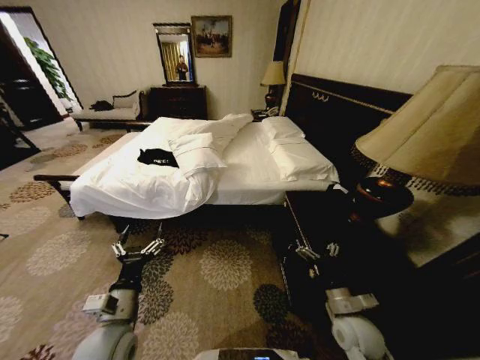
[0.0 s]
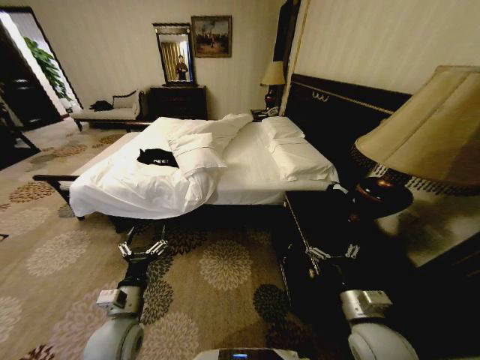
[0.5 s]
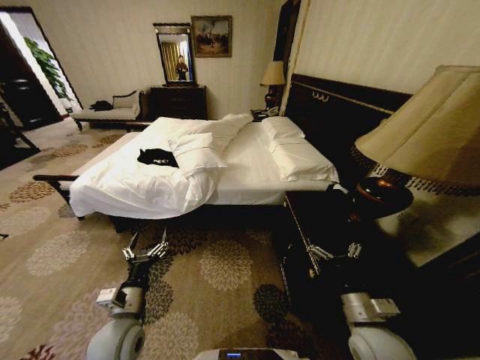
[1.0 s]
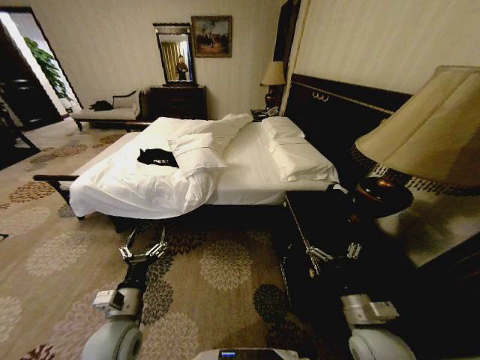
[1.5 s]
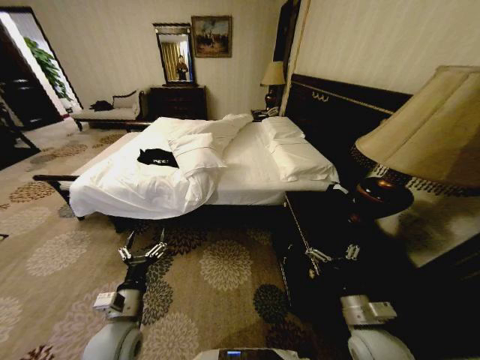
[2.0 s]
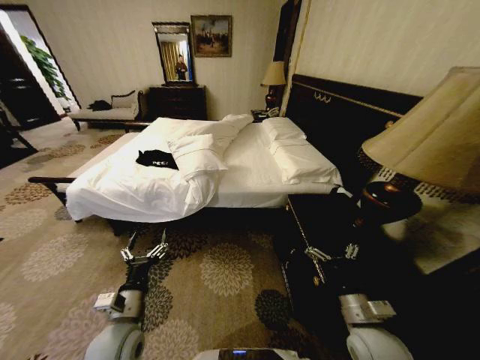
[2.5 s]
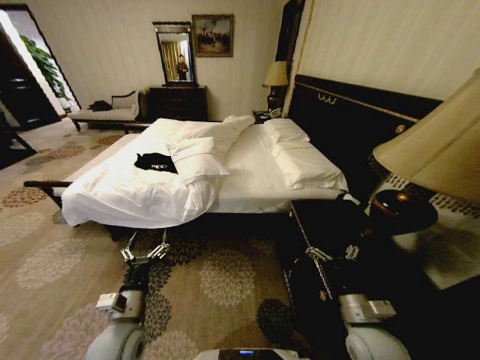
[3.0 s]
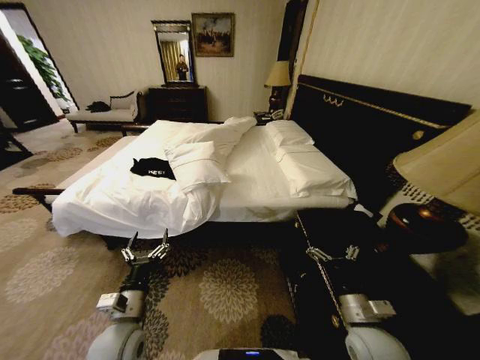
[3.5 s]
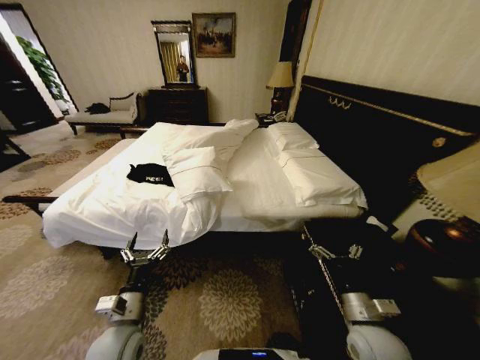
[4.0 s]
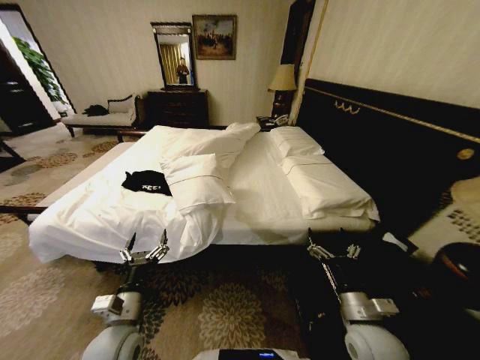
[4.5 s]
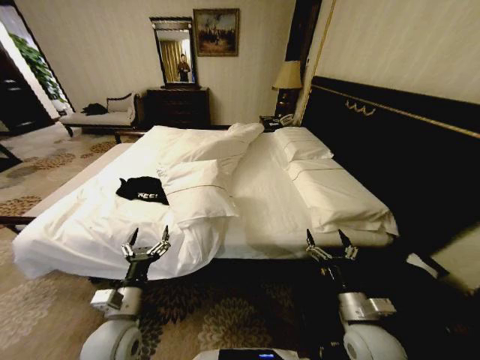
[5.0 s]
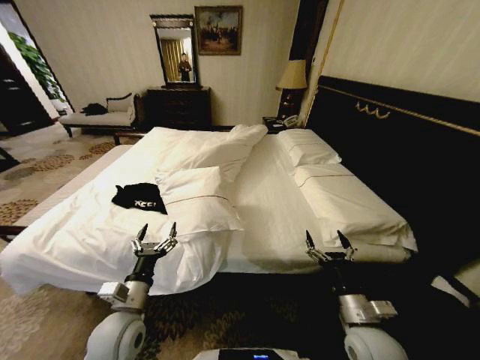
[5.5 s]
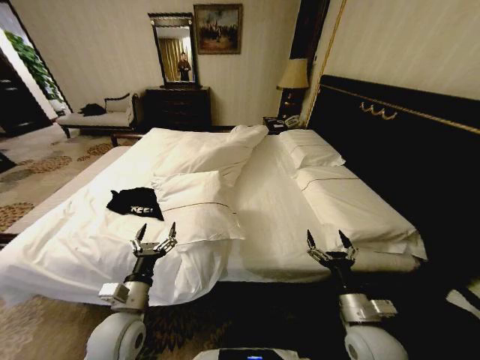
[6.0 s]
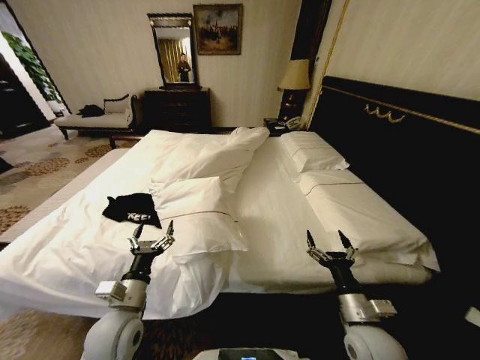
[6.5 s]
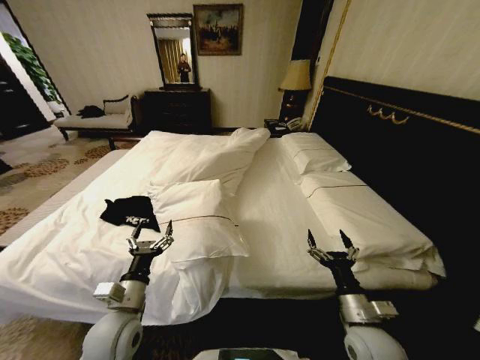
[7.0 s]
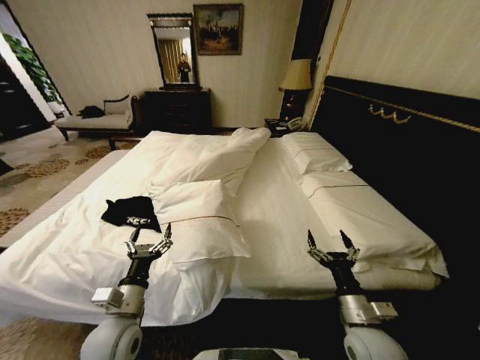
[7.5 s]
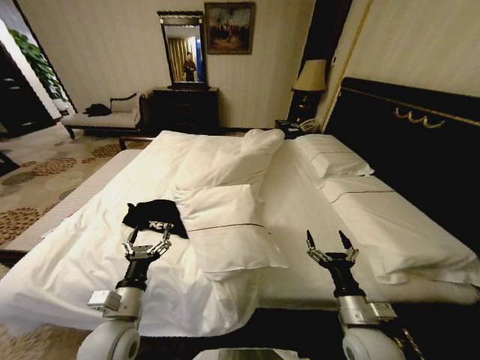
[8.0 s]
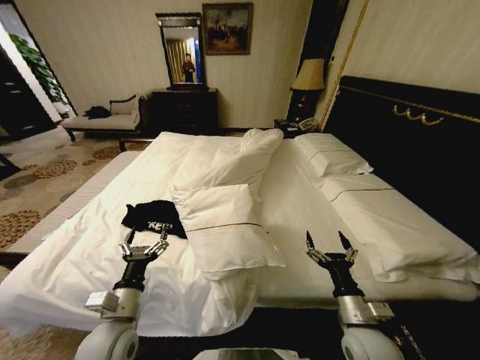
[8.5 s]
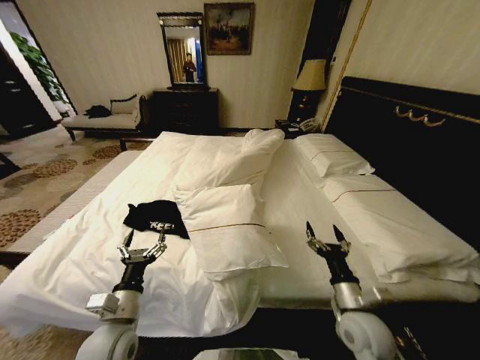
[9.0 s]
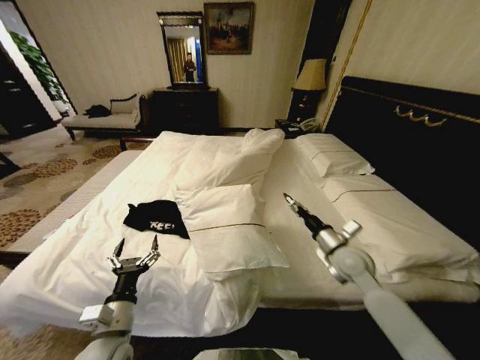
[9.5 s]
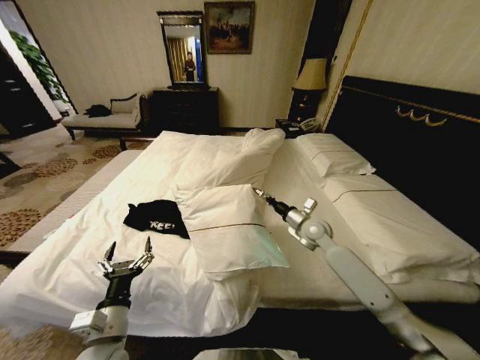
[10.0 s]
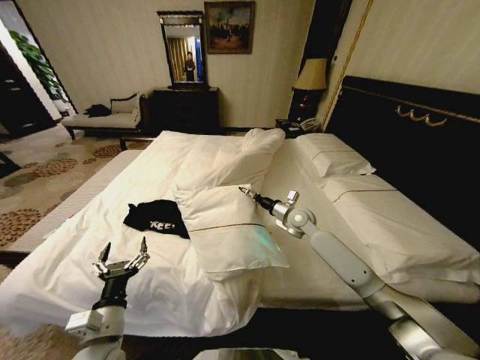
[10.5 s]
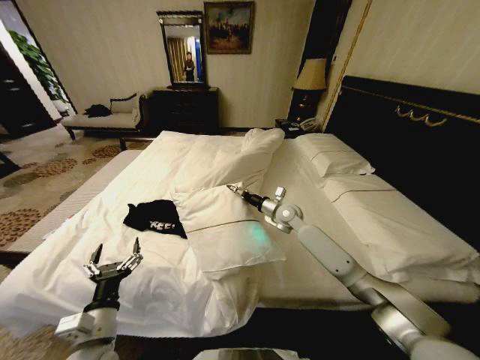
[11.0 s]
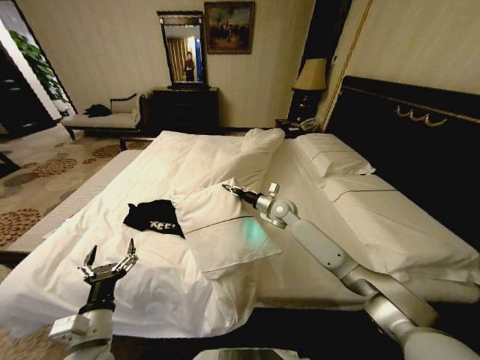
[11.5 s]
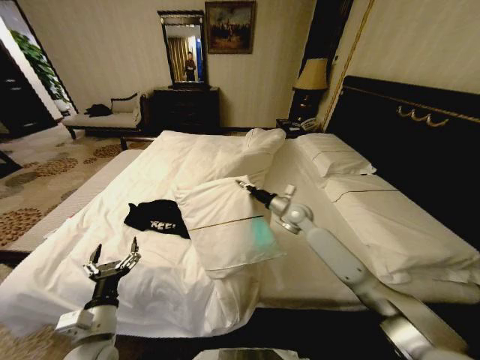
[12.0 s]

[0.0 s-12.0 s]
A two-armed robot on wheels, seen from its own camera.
Task of the whole recording: Fold the clothes on the bed.
8.0 to 10.0 s: The right gripper goes roughly 30 cm forward.
10.0 to 12.0 s: The right gripper is displaced forward by about 5 cm, and closes its fingers.

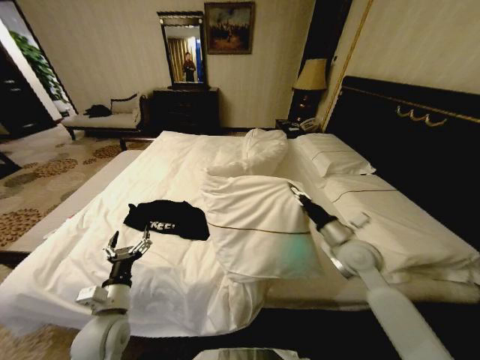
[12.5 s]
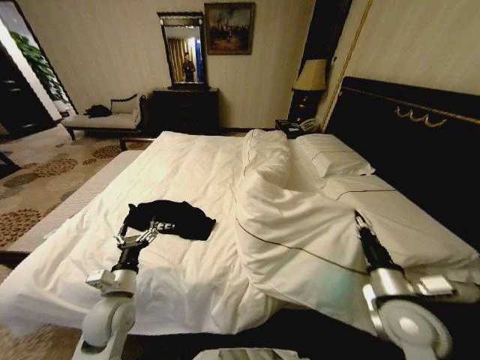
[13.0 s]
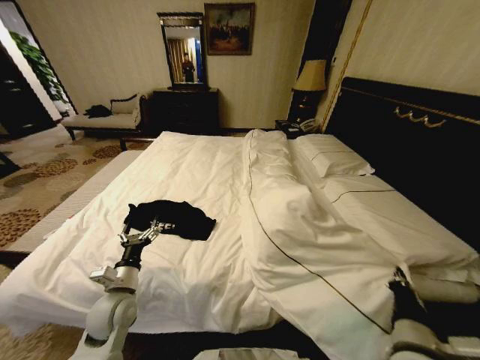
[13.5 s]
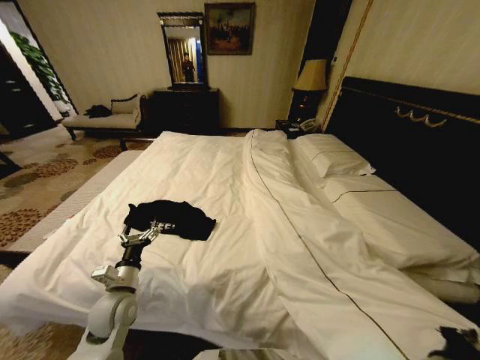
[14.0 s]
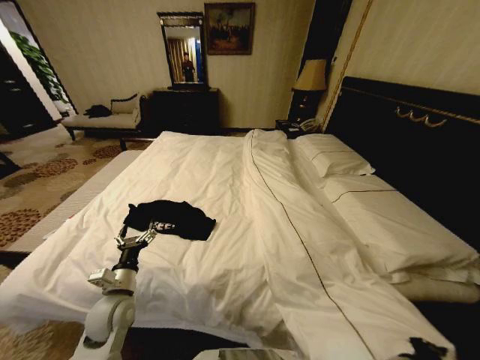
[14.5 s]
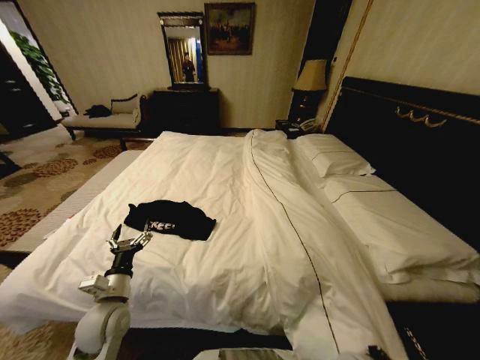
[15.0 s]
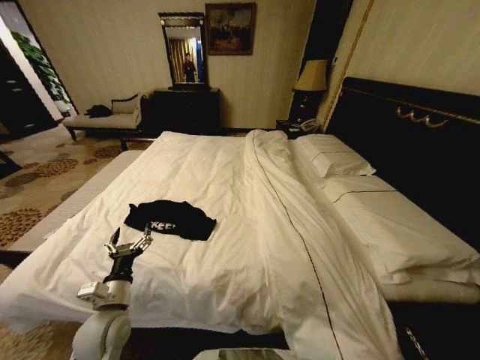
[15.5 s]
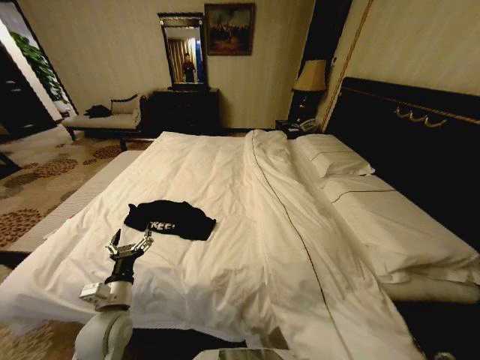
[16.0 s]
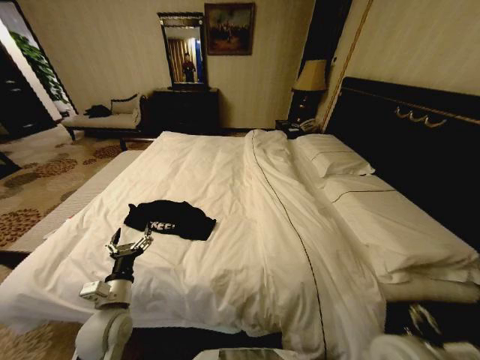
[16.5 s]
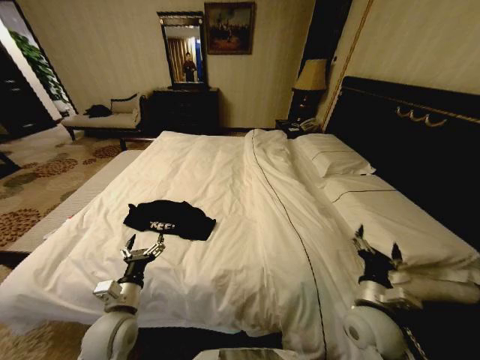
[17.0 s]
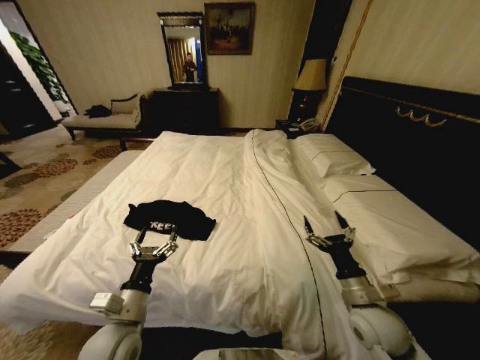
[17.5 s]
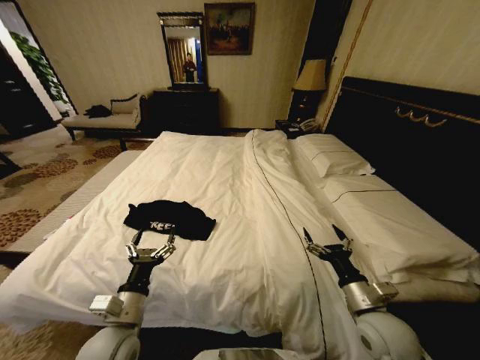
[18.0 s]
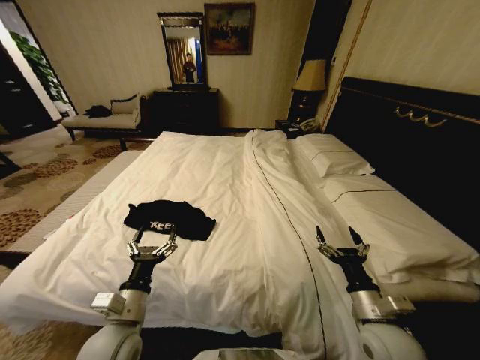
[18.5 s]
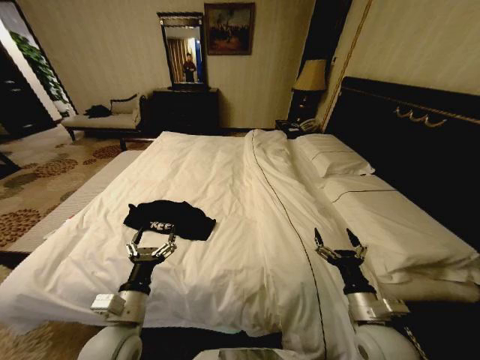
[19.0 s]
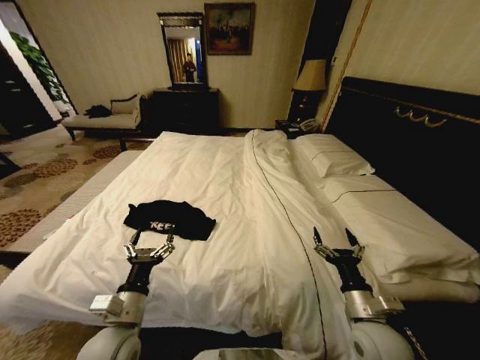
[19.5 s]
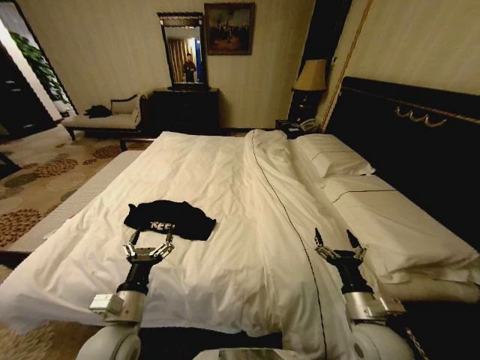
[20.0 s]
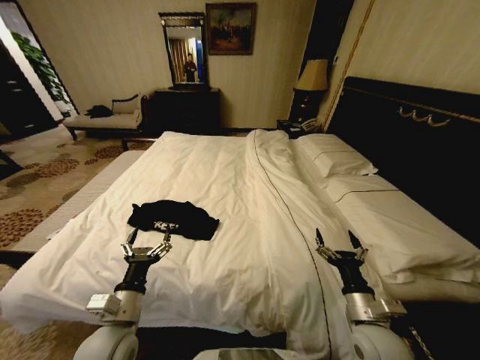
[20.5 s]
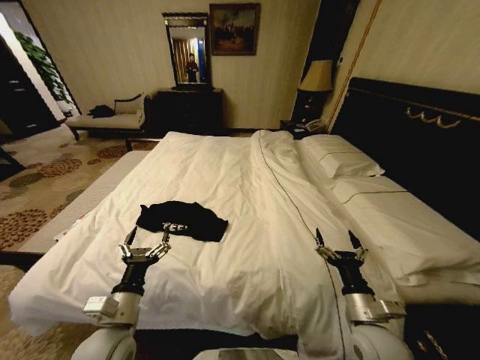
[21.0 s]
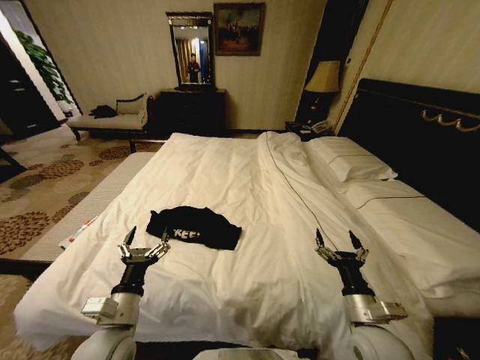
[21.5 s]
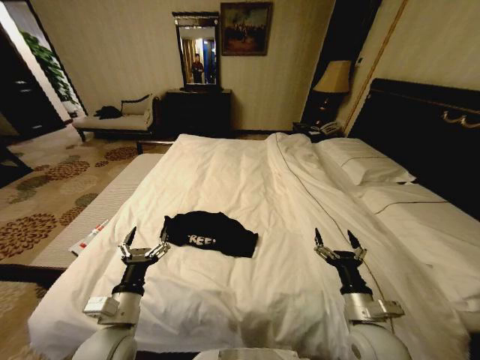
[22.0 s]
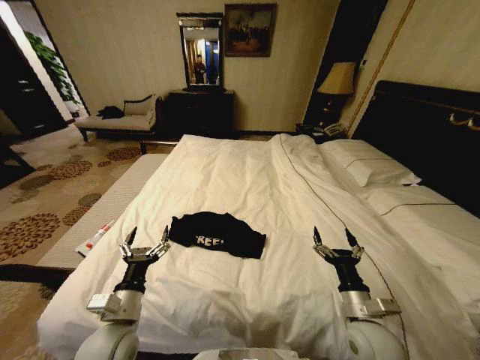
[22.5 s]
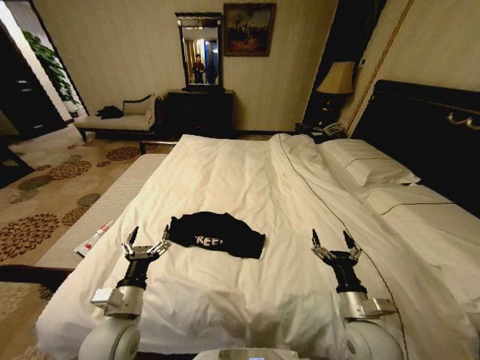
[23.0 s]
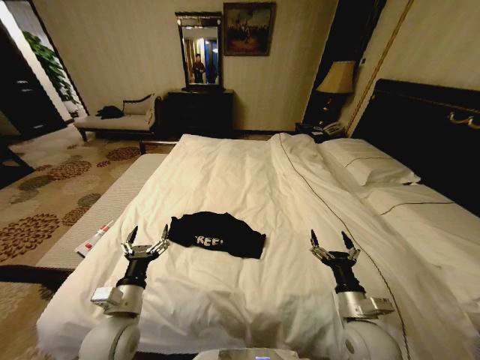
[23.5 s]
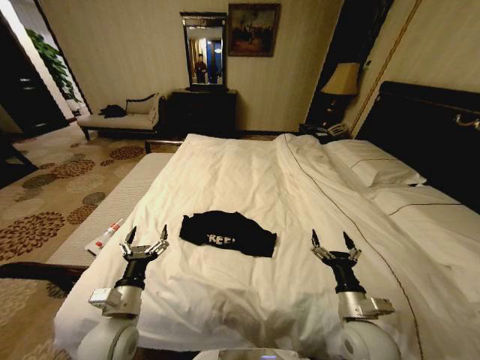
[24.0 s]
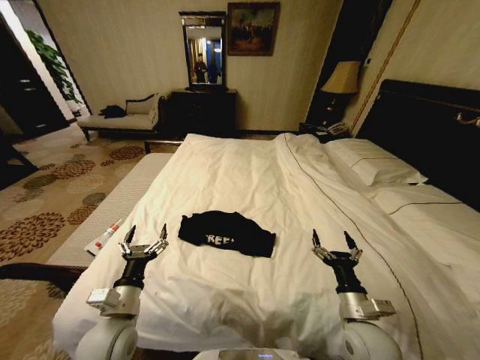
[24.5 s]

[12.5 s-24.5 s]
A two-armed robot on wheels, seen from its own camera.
Task of the whole recording: Fold the clothes on the bed.
12.5 to 14.5 s: The right gripper moves backward, some 25 cm; the left gripper moves approximately 5 cm.
14.5 to 16.5 s: The right gripper travels downward and back again, approximately 15 cm each way, and opens up.
16.5 to 18.5 s: The left gripper goes roughly 5 cm to the right, while the right gripper moves some 5 cm.
18.5 to 20.5 s: There are only small adjustments of the grippers.
22.5 to 24.5 s: The grippers stay close to where they were, moving slightly.

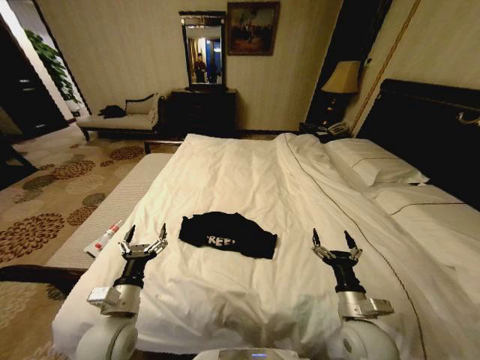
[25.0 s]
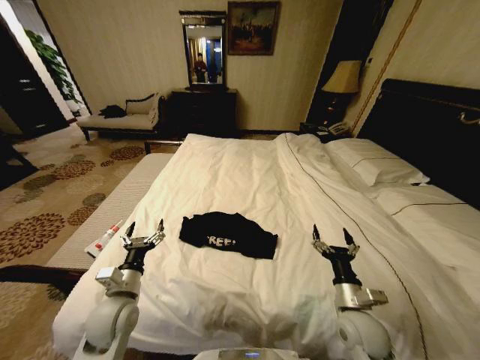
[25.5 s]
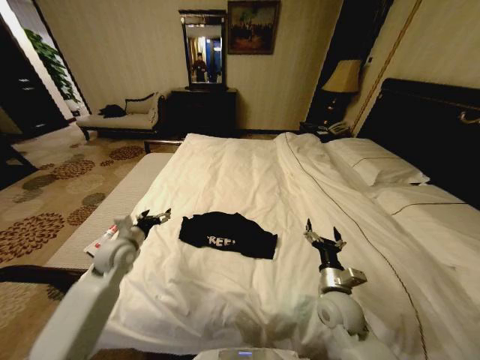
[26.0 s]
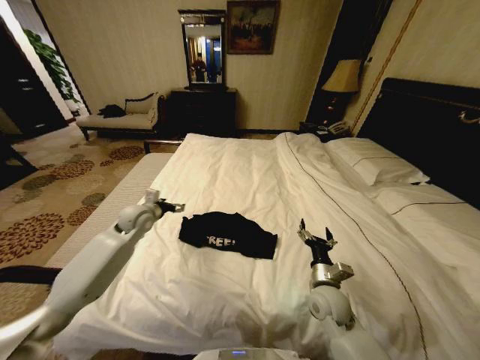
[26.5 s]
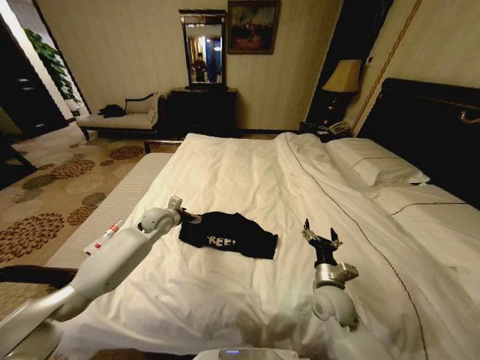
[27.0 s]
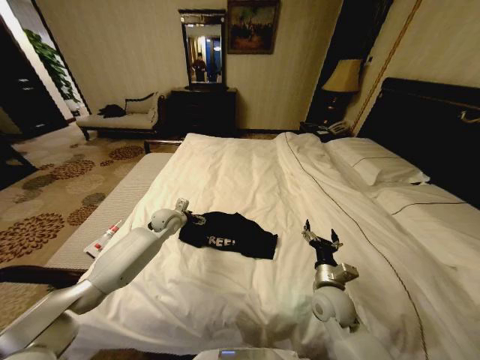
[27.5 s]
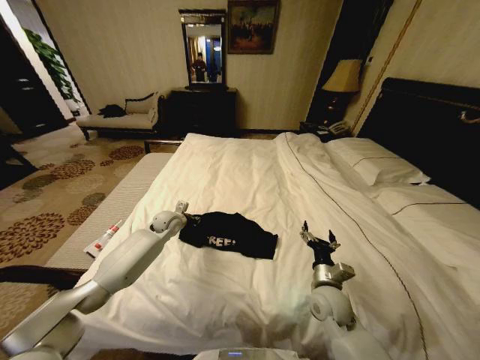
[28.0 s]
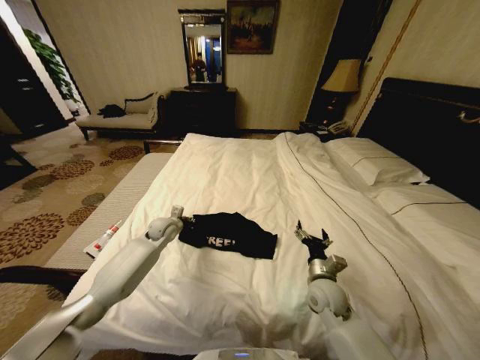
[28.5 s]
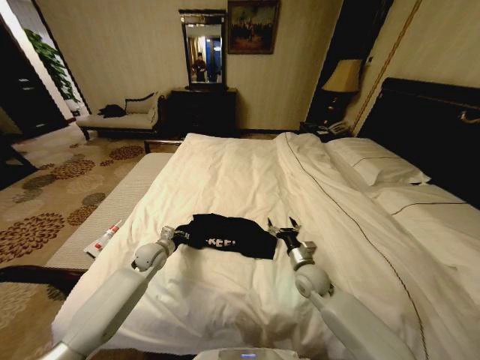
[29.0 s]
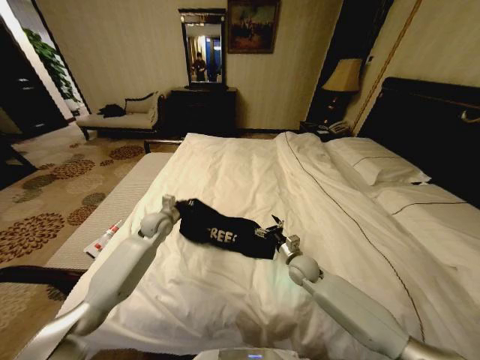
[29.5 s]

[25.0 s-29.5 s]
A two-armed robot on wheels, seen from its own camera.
Task of the whole recording: Fold the clothes on the bed.
25.0 to 27.0 s: The left gripper is displaced forward by some 30 cm, while the right gripper is displaced forward by about 10 cm.
27.0 to 29.5 s: The left gripper travels backward and back again, some 10 cm each way, and closes its fingers. The right gripper is displaced forward by roughly 10 cm.
